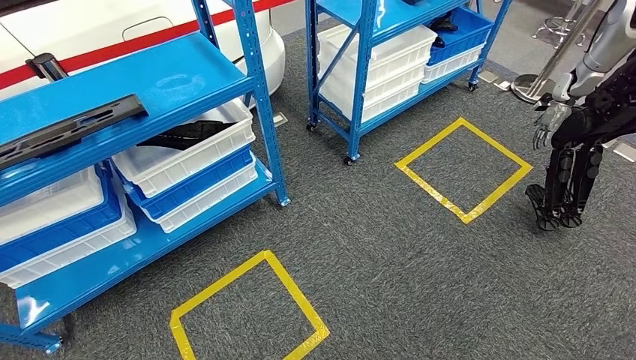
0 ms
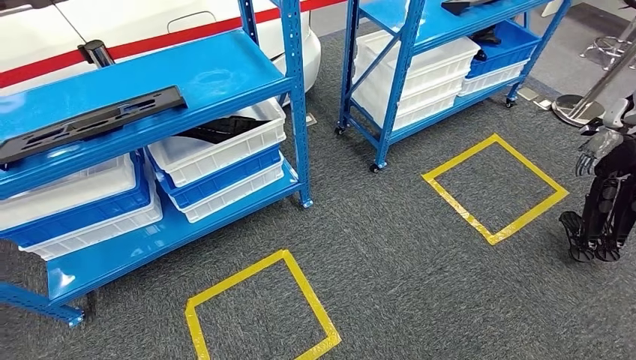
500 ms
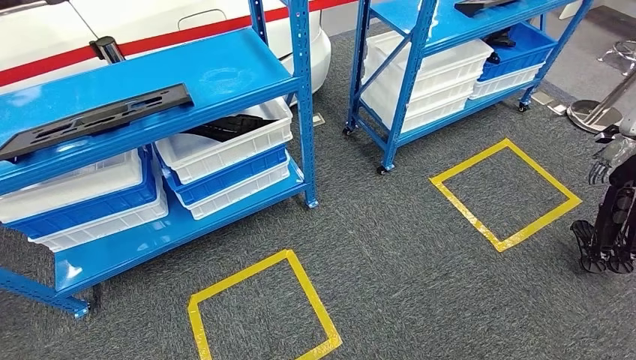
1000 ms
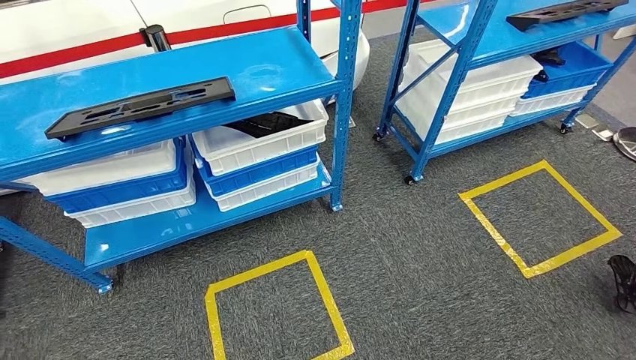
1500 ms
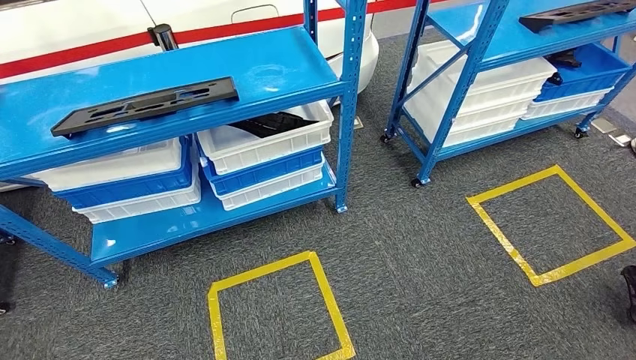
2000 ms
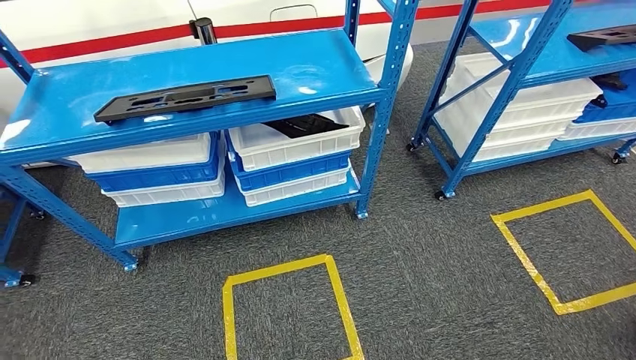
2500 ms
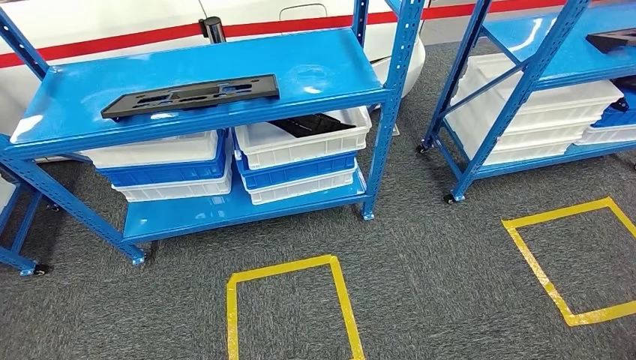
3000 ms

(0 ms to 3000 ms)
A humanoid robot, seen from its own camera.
Step, 0 ms - 3000 ms: Return to the initial position at the shelf.
